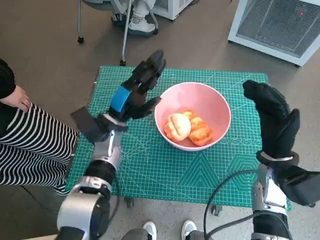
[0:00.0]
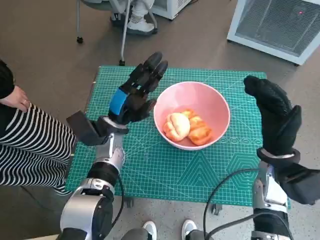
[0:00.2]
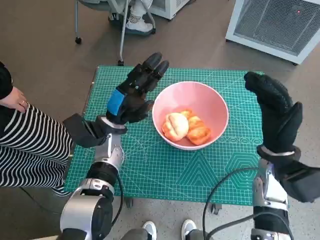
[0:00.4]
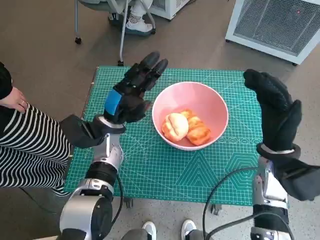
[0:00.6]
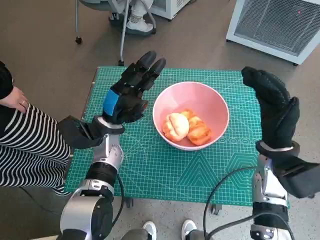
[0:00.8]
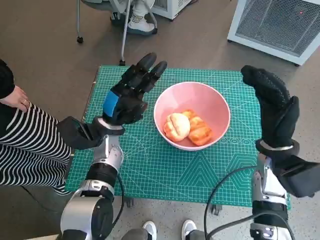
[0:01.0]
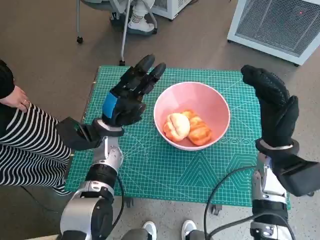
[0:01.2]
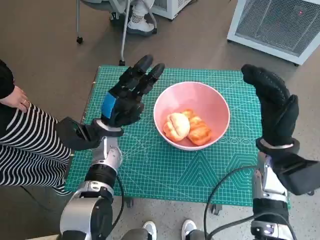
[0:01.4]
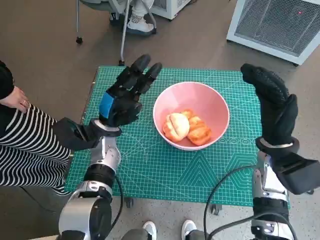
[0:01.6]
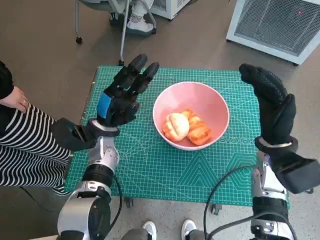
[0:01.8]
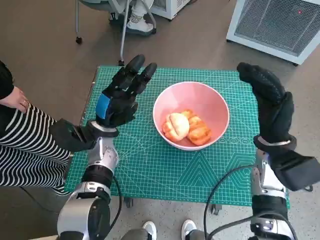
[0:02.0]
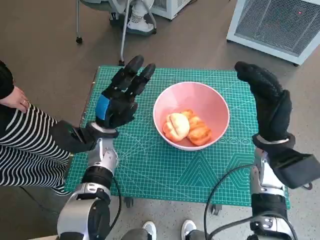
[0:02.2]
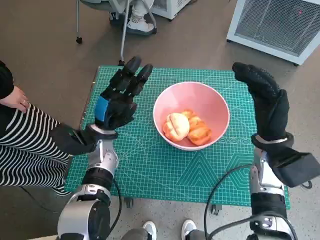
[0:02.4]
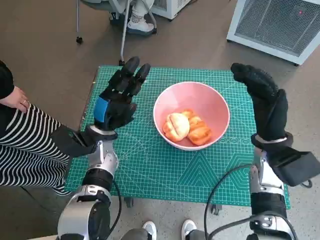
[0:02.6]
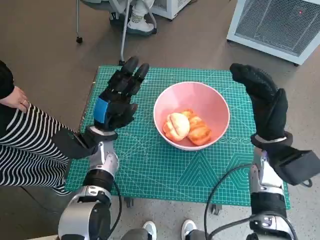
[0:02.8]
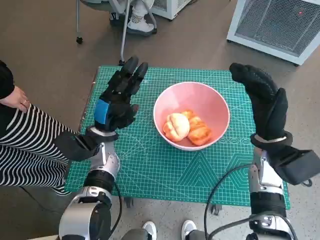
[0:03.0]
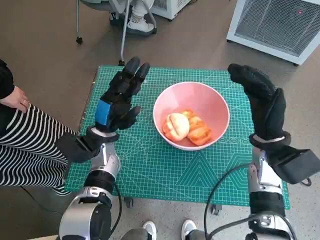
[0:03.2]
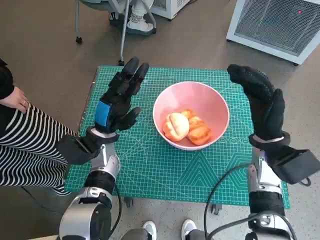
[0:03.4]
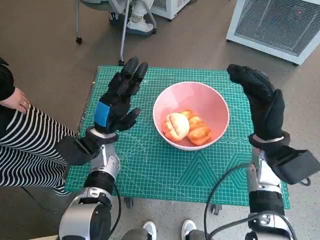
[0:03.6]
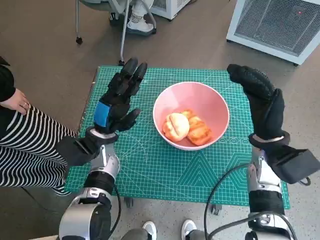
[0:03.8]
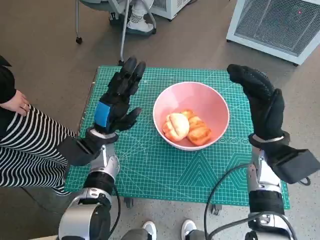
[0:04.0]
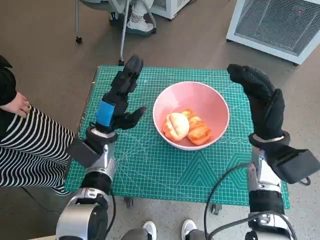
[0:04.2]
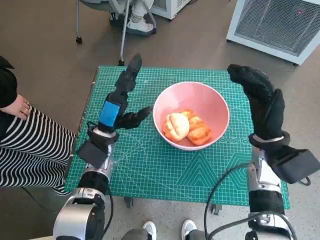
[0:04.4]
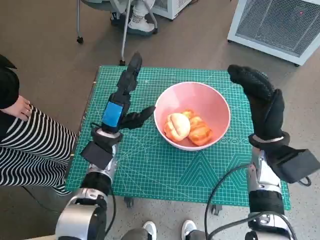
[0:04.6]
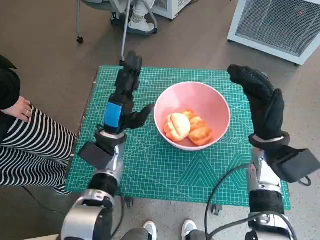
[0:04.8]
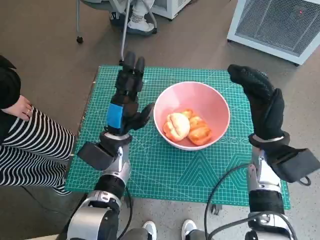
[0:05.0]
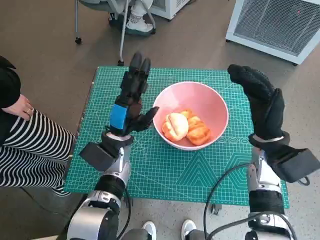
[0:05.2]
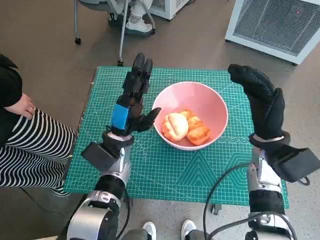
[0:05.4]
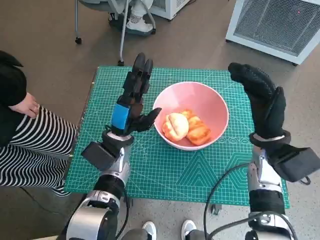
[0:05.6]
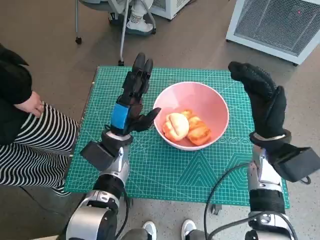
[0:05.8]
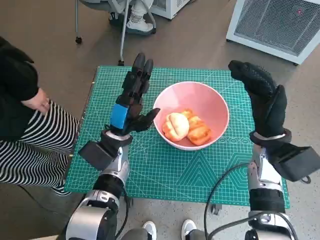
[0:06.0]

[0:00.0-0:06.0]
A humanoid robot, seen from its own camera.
Task of the whole recording: Push the bowl into the center of the table and put the bread into the bowl.
0:01.6 to 0:03.0: The hands make only small movements.
0:04.4 to 0:06.0: The hands make only small movements.

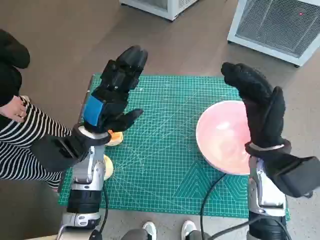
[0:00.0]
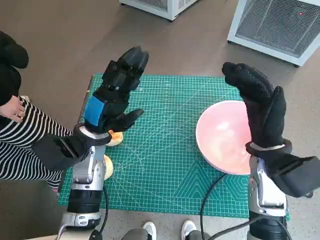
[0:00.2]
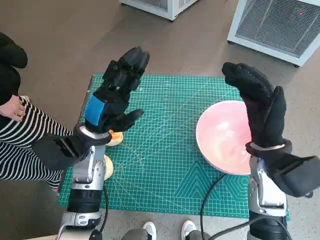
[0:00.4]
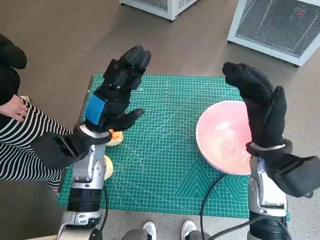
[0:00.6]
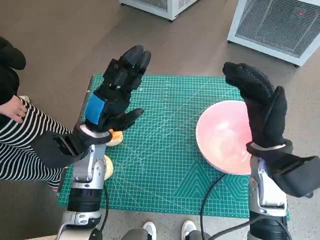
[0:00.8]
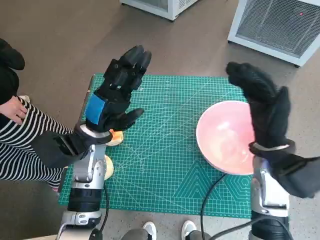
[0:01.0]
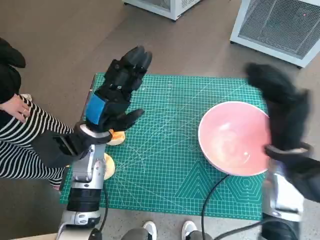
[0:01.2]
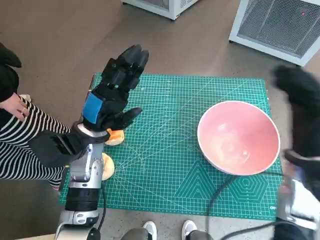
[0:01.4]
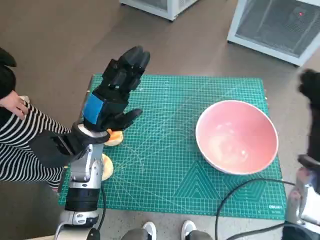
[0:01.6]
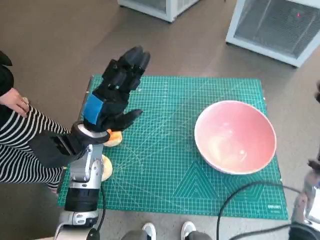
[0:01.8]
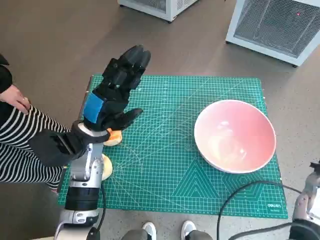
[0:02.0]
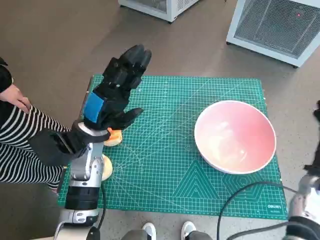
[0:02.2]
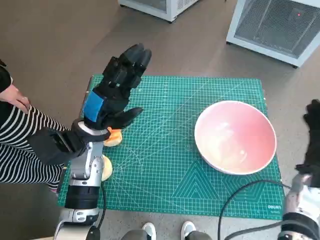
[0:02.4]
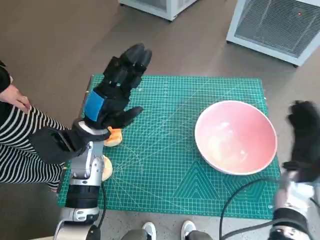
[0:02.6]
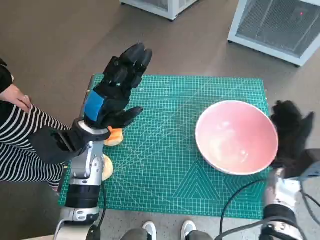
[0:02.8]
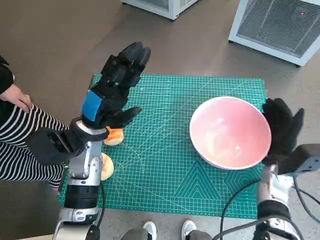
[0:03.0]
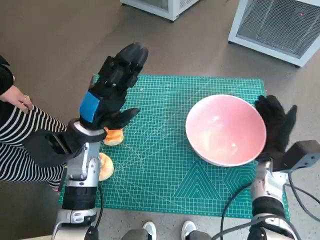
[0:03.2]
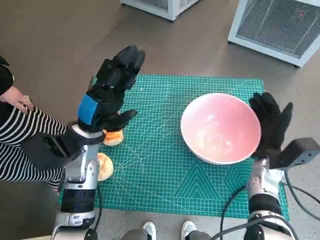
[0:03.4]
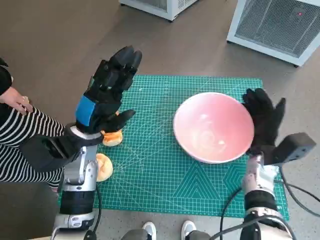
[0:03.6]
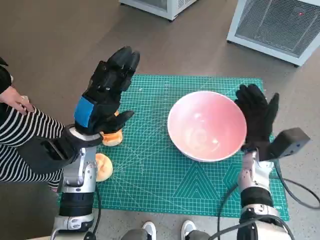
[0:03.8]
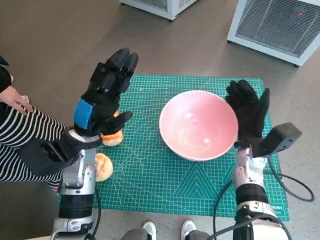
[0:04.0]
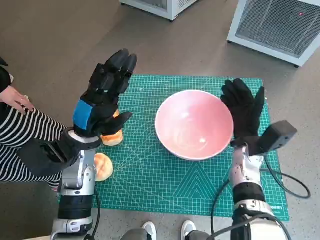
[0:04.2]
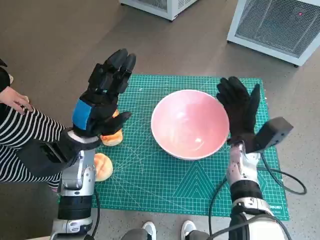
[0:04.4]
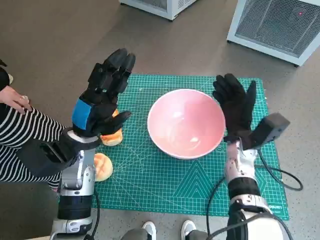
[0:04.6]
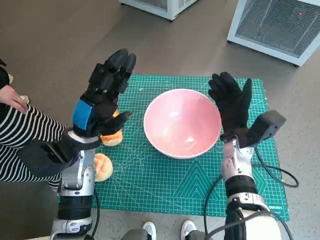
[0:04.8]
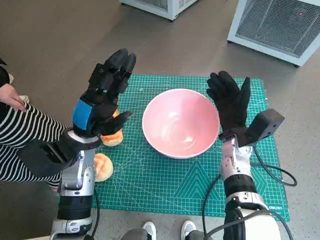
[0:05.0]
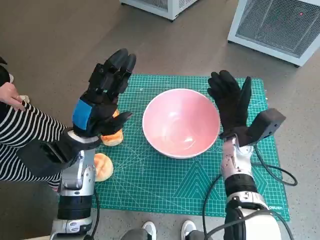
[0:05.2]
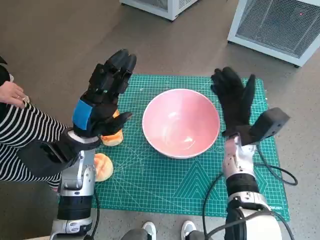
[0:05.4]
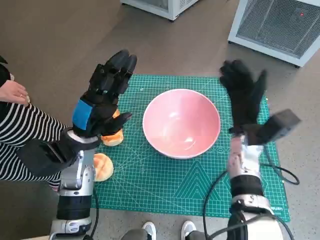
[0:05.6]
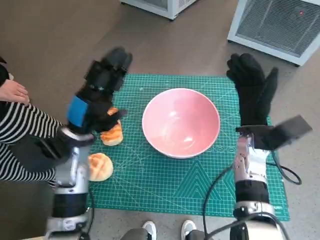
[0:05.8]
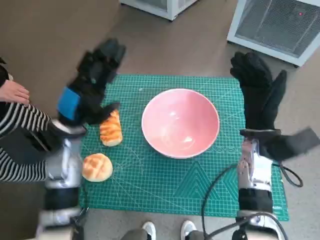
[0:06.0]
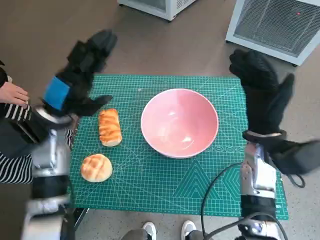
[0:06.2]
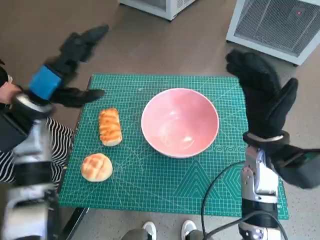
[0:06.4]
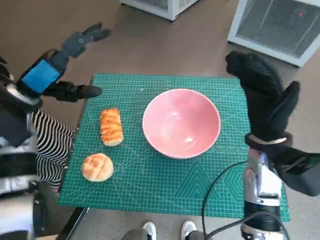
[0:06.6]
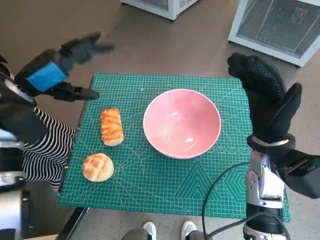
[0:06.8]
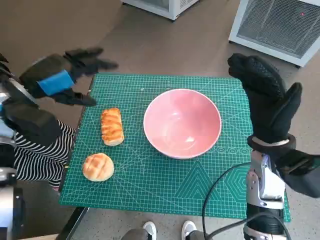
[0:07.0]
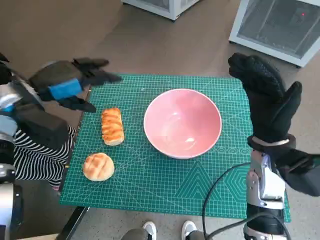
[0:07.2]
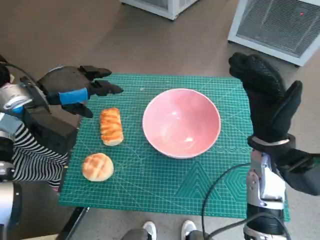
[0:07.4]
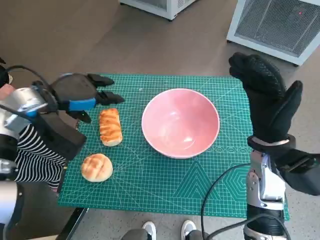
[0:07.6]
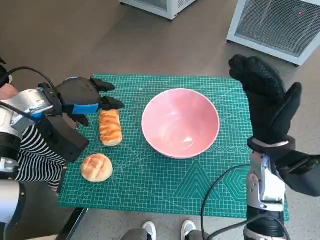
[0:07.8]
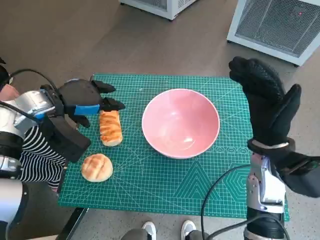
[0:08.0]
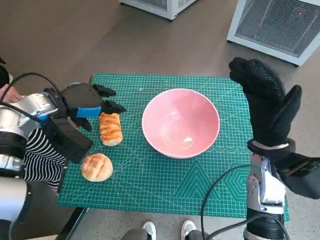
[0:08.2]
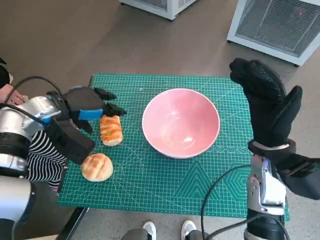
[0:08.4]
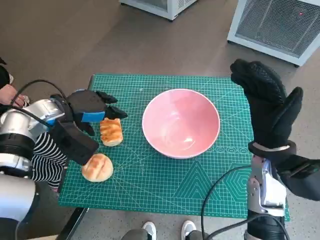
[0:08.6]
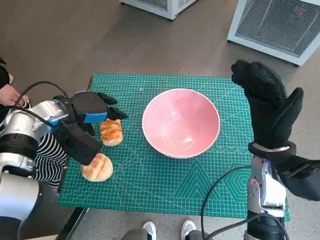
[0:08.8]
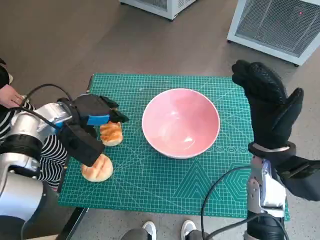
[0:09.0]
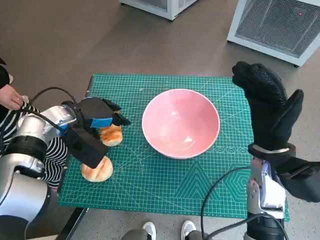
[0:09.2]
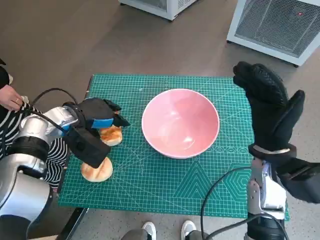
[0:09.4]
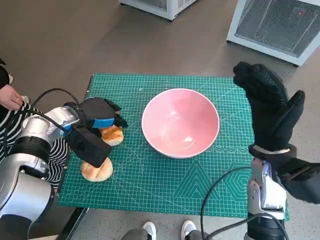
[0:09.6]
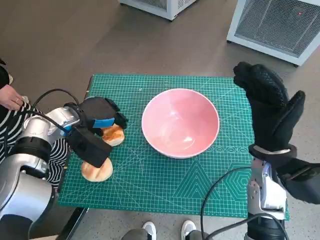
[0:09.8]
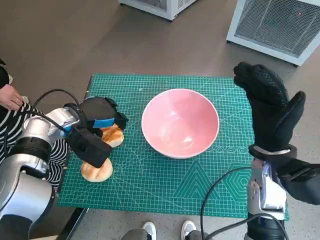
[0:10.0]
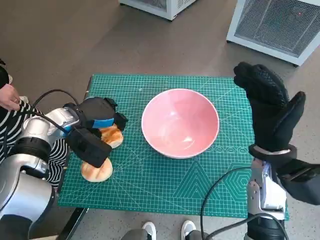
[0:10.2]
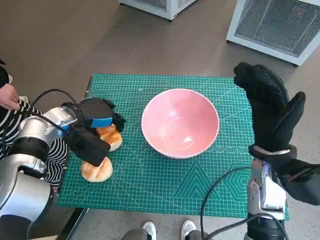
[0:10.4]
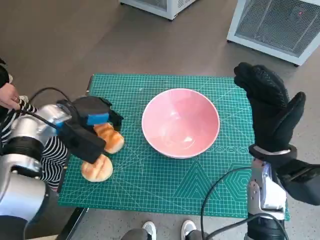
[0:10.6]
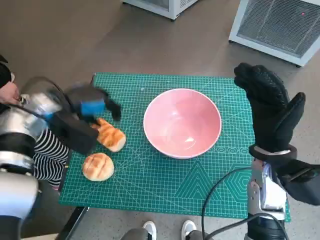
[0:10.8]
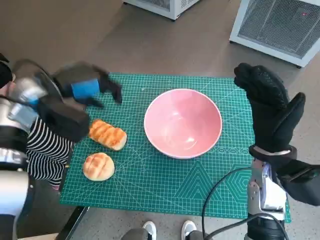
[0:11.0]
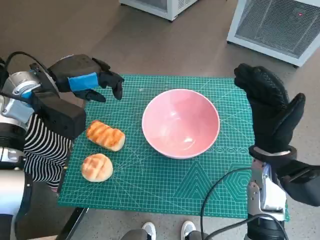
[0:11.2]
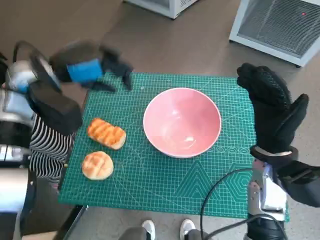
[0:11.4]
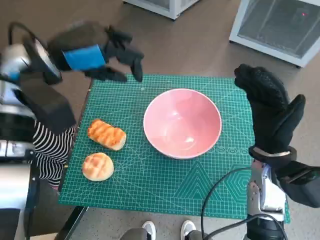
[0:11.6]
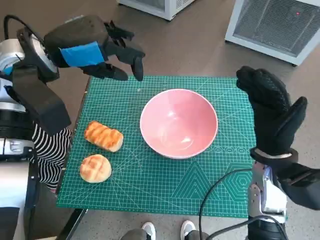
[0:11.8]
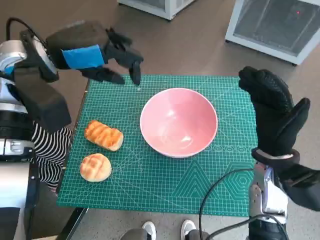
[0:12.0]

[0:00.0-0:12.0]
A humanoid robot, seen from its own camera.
Task of the whole recording: Push the bowl into the center of the table and put the bread into the bowl.
Step, 0:00.0 to 0:05.2: Move the pink bowl to the center of table with right hand.
0:01.6 to 0:03.0: The right hand travels downward by roughly 10 cm.
0:03.0 to 0:04.4: The right hand shifts approximately 5 cm to the left.
0:04.4 to 0:06.0: The right hand is displaced upward by some 5 cm.
0:06.0 to 0:07.6: The left hand travels upward and to the left by about 10 cm. Meanwhile the right hand ends up about 5 cm from where it was.
0:07.6 to 0:09.0: The left hand heads downward, covering approximately 5 cm.
0:09.0 to 0:10.4: The hands move only a little.
0:10.4 to 0:12.0: The left hand travels upward by roughly 15 cm.

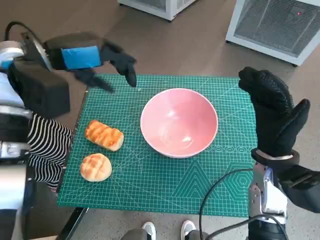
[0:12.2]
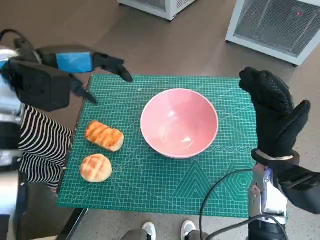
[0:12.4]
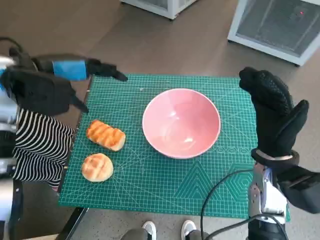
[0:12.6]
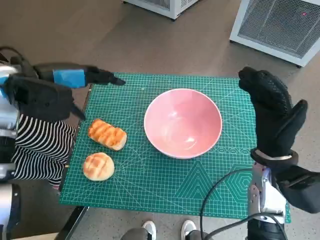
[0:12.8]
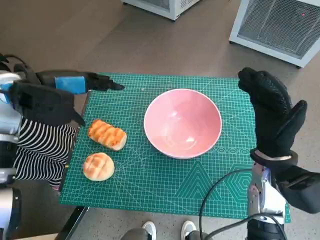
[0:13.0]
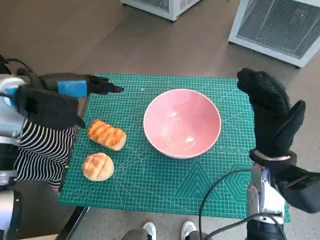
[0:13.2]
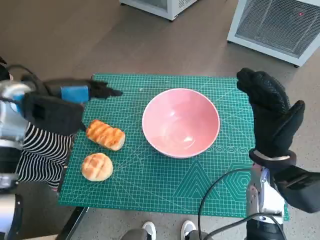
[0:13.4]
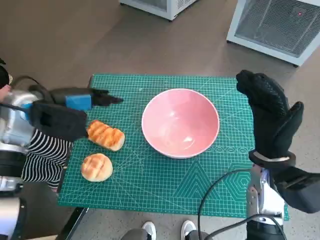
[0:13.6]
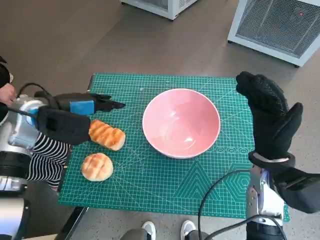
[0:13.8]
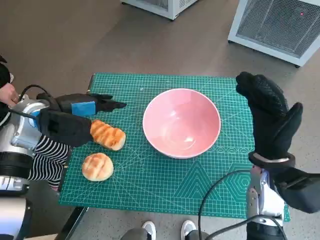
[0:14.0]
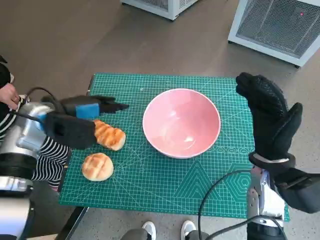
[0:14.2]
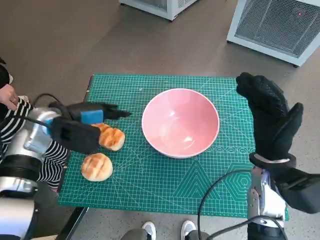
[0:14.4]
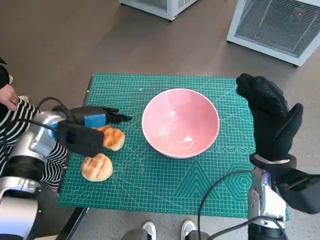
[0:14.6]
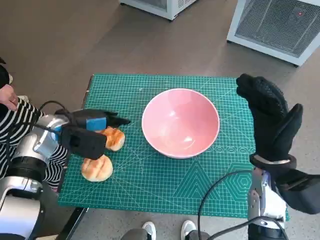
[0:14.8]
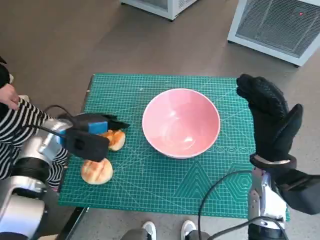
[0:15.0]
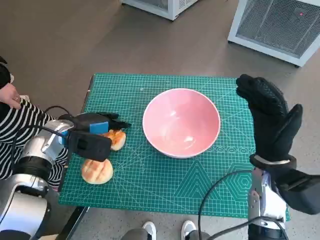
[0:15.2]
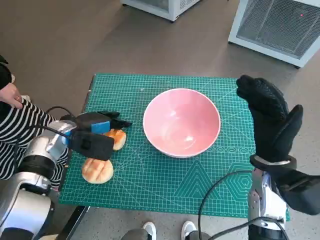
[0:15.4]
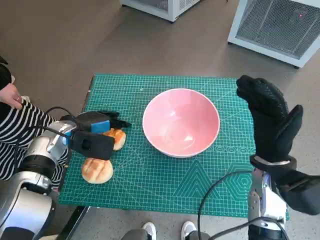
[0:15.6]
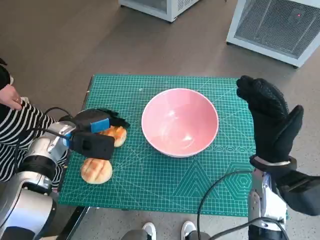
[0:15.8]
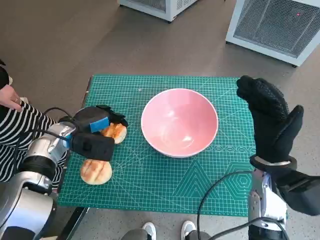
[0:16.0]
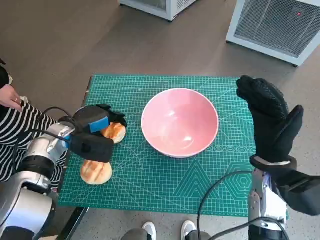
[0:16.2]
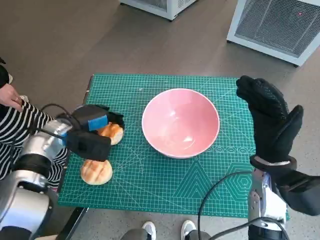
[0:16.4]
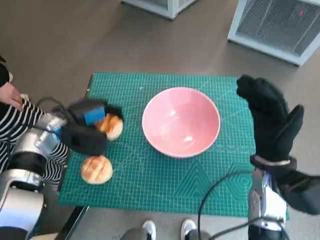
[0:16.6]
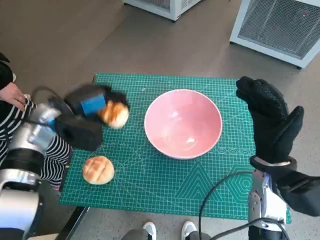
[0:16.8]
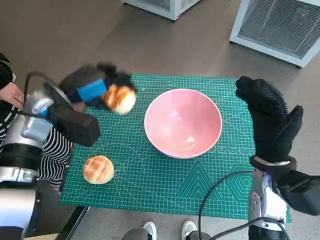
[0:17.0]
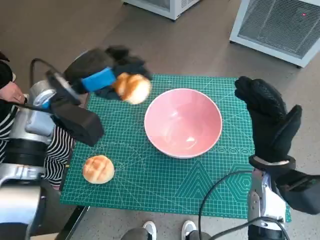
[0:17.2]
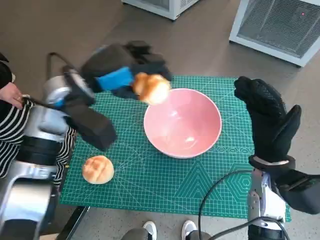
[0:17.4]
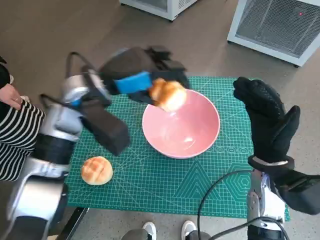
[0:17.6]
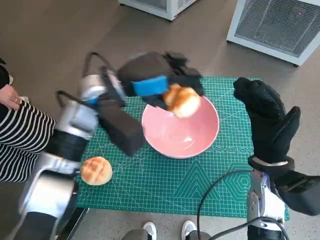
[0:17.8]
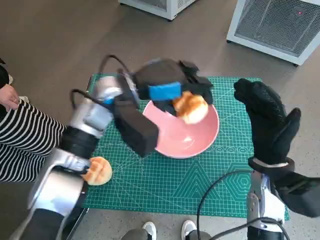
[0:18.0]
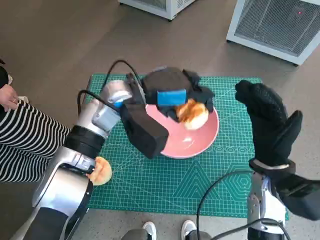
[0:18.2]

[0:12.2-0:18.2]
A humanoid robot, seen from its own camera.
Task of the whole recording: Push the bowl into the center of the table and put the bread into the bowl.
Step, 0:12.2 to 0:16.2: Grasp the long bread with left hand.
0:12.2 to 0:13.8: The left hand heads downward, covering about 10 cm.
0:13.8 to 0:15.2: The left hand shifts about 10 cm downward.
0:15.2 to 0:16.6: The hands stay close to where they were, moving slightly.
0:16.6 to 0:18.2: The left hand moves to the right and upward, roughly 20 cm.
